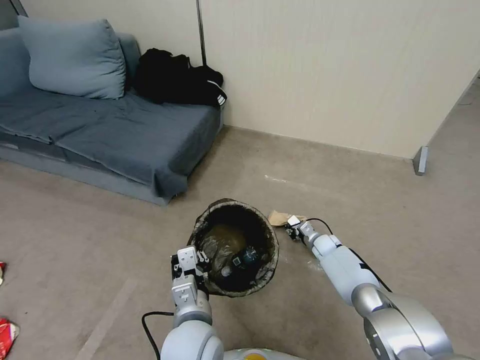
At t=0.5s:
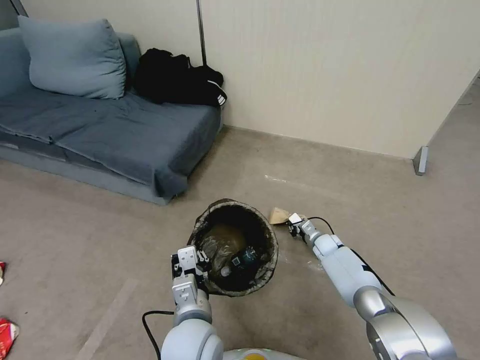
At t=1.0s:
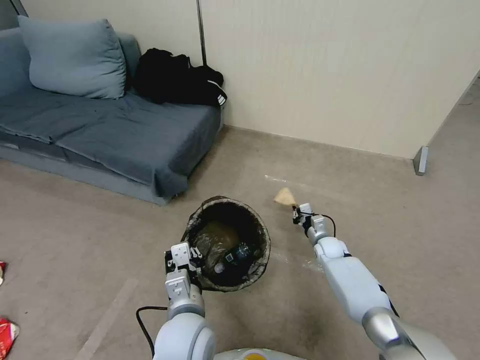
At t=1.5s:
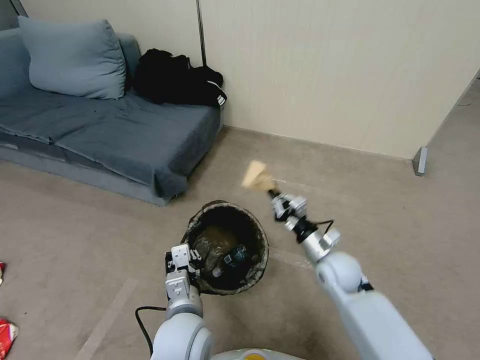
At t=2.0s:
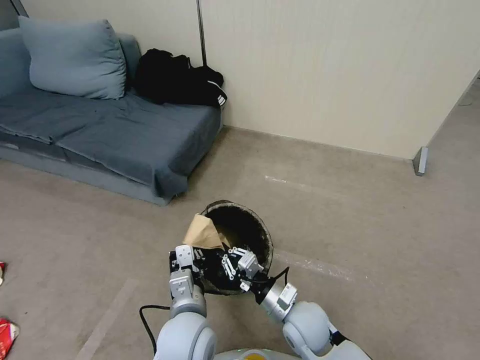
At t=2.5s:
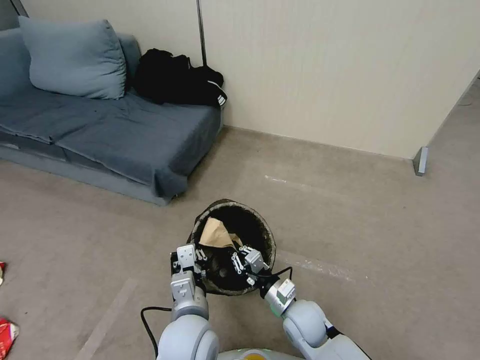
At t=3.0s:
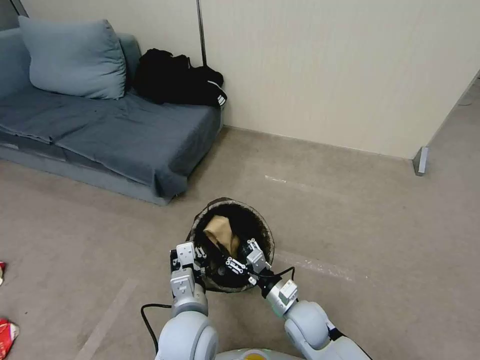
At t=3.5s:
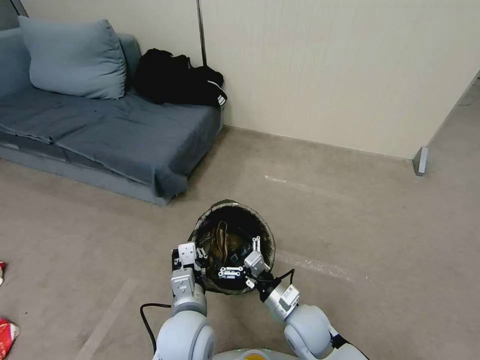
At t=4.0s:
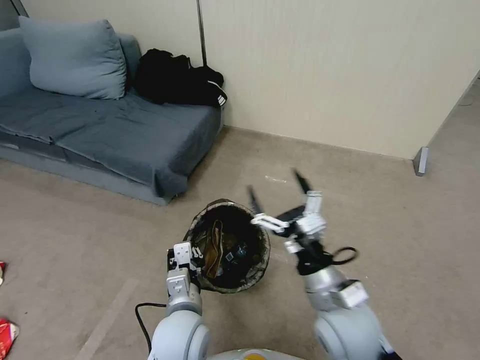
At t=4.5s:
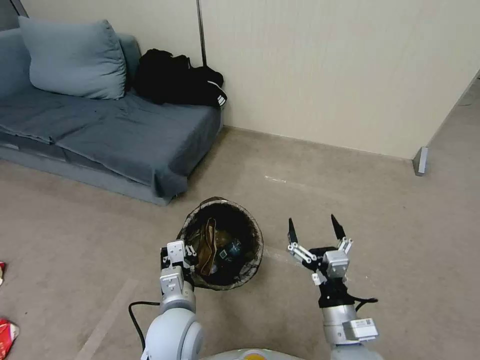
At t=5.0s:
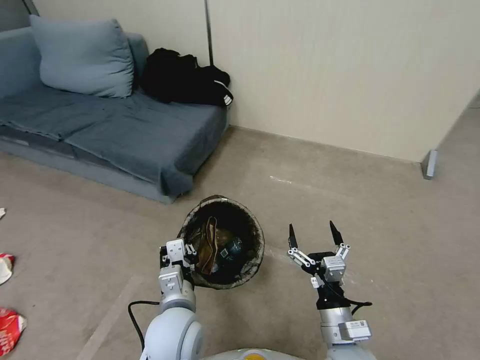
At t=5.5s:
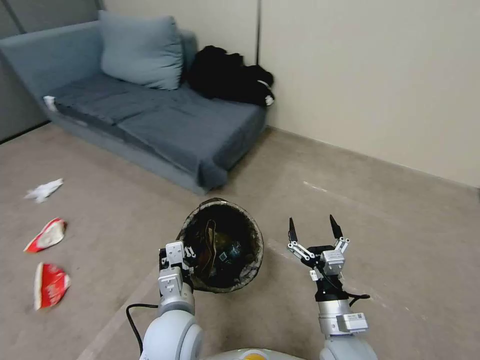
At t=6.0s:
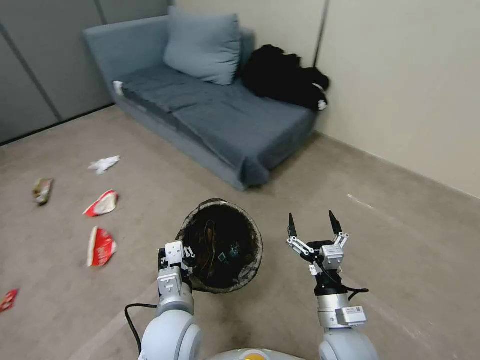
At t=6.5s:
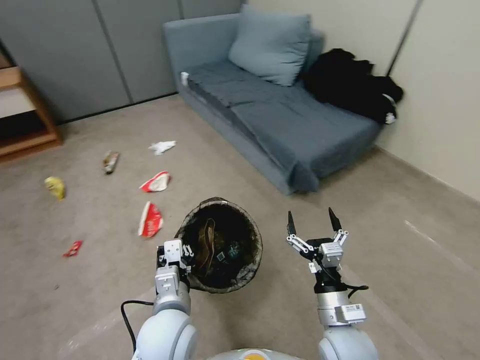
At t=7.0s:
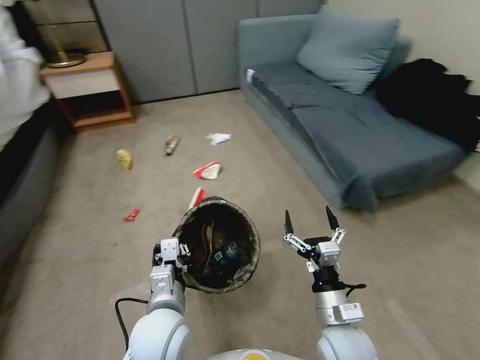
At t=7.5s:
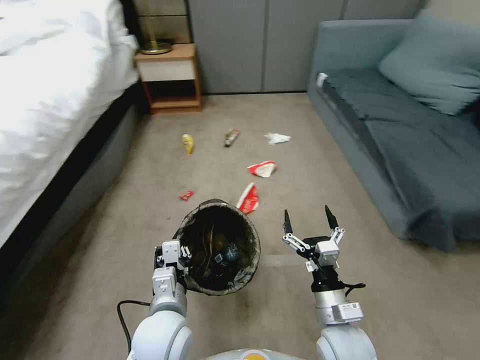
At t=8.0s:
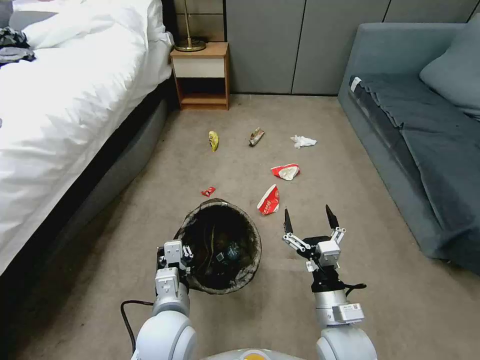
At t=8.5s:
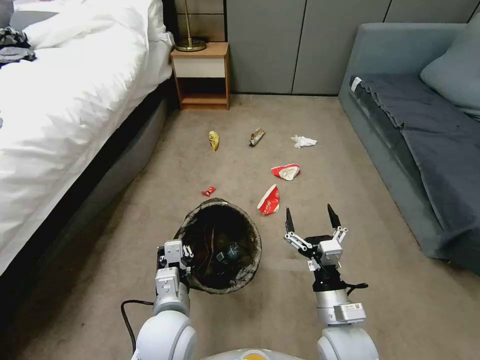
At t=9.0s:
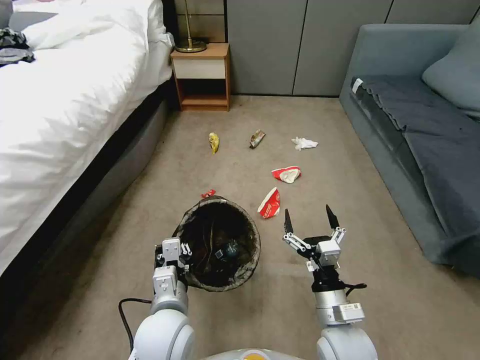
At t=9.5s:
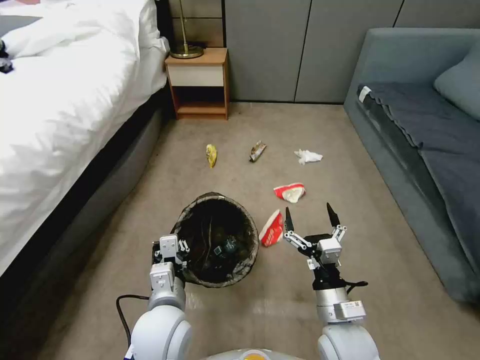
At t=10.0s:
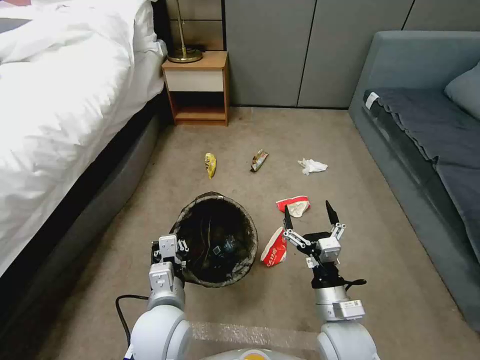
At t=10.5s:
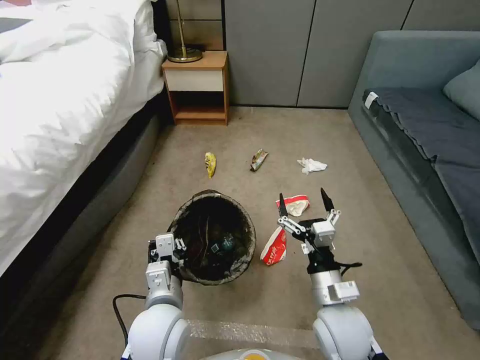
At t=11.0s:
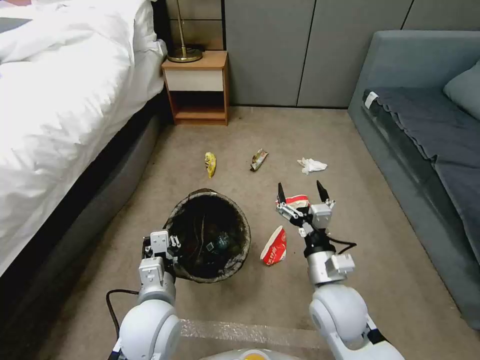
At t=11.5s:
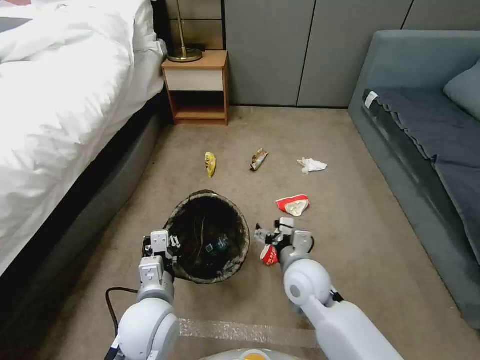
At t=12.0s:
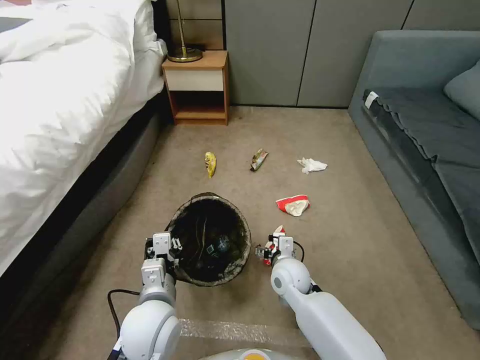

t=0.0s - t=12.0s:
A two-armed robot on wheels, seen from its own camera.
Task of the whole recording: Pick up the trash bin, then pick up the garbage from the floor and place it into the trash bin.
t=0.0s - t=2.0s: The right gripper heads backward, to the left and upward, covering approximately 30 cm.
t=2.0s - t=4.0s: The right gripper shifts approximately 15 cm upward, and opens its fingers.
t=4.0s - t=6.0s: The right gripper travels downward by about 10 cm.
t=10.0s - t=12.0s: The right gripper goes approximately 15 cm forward and to the left.

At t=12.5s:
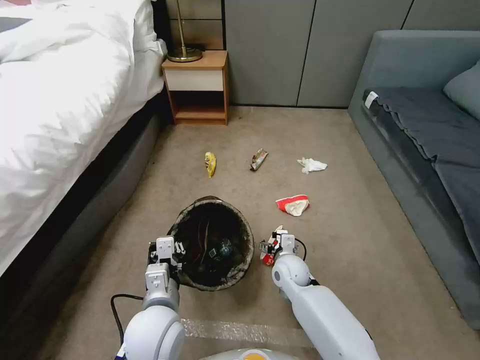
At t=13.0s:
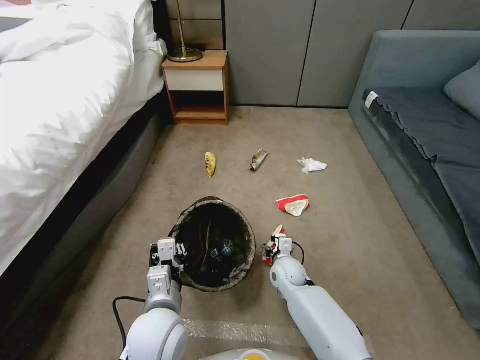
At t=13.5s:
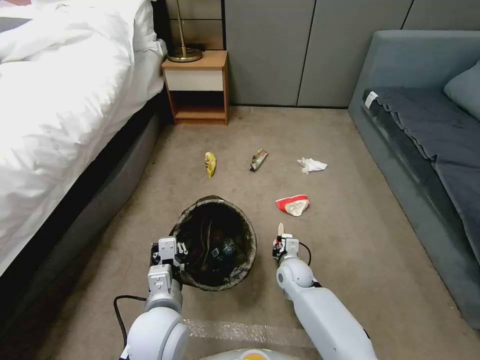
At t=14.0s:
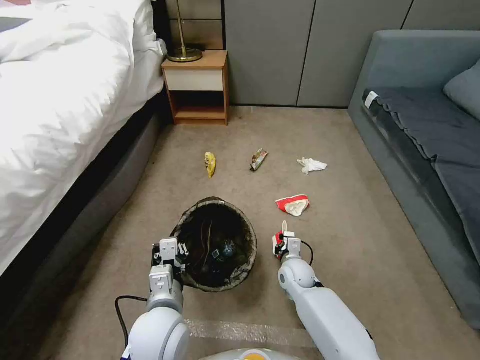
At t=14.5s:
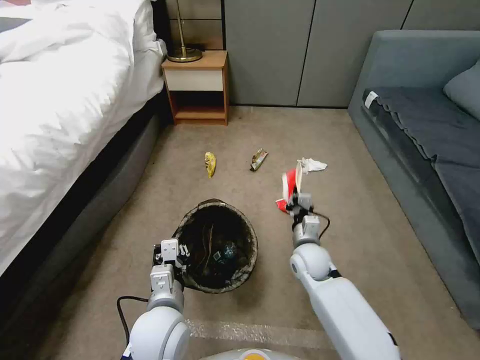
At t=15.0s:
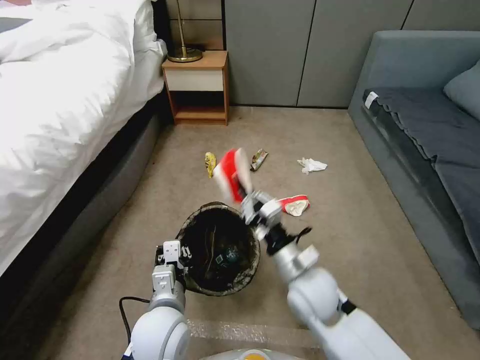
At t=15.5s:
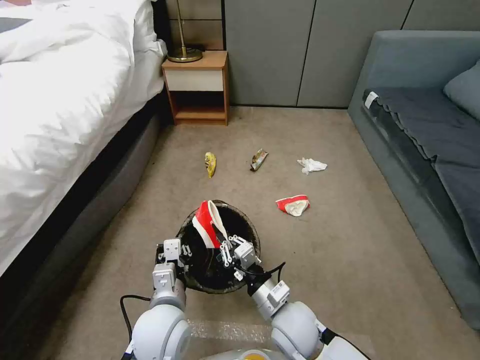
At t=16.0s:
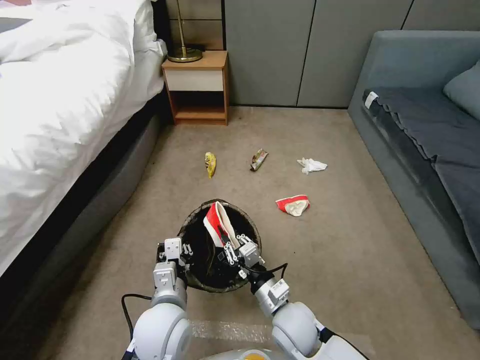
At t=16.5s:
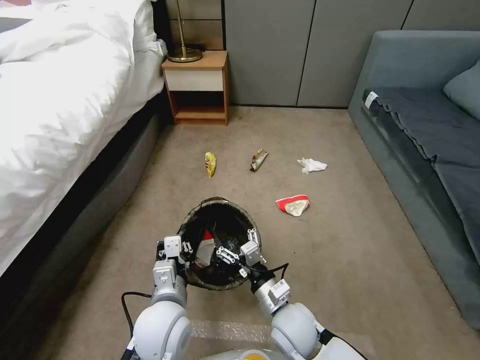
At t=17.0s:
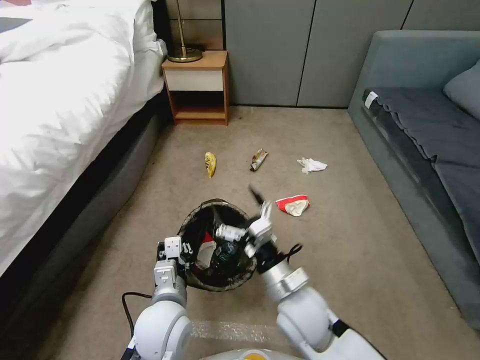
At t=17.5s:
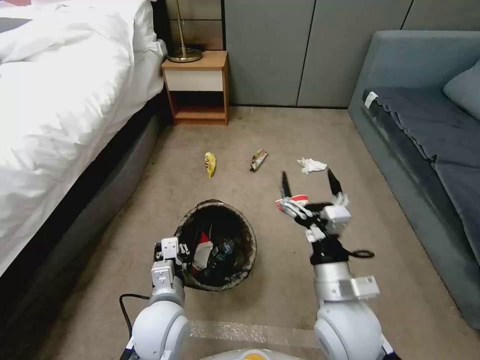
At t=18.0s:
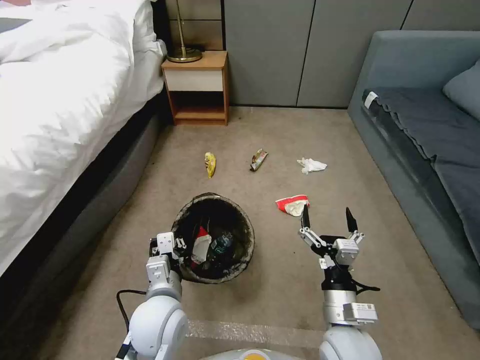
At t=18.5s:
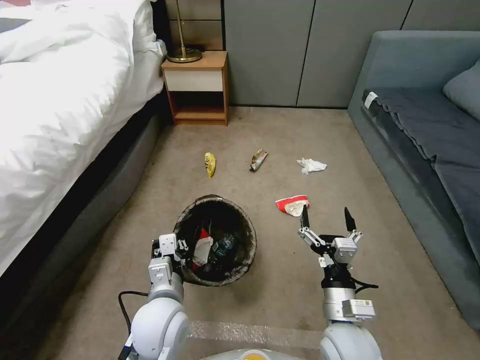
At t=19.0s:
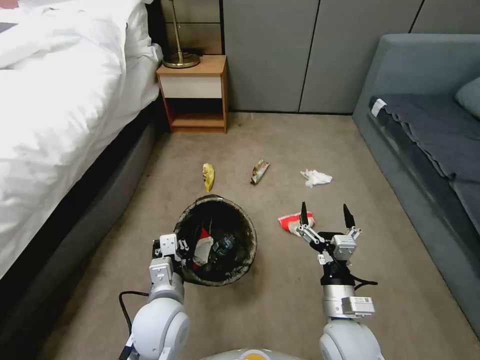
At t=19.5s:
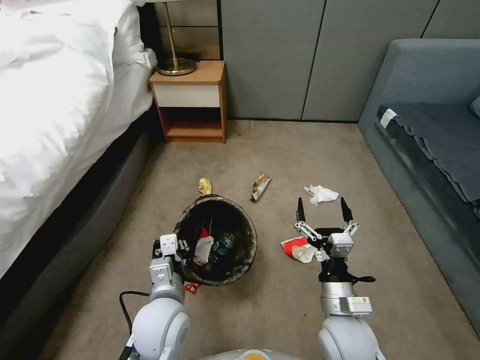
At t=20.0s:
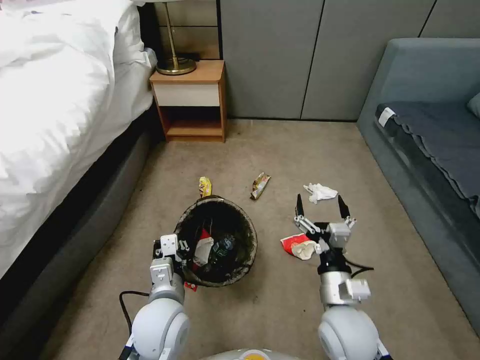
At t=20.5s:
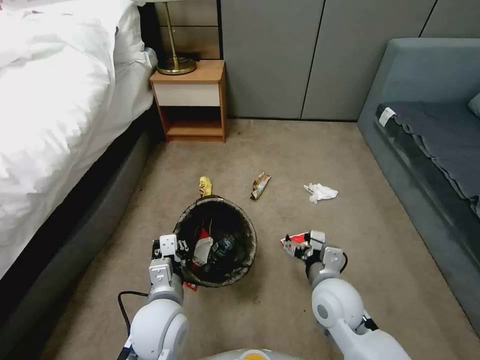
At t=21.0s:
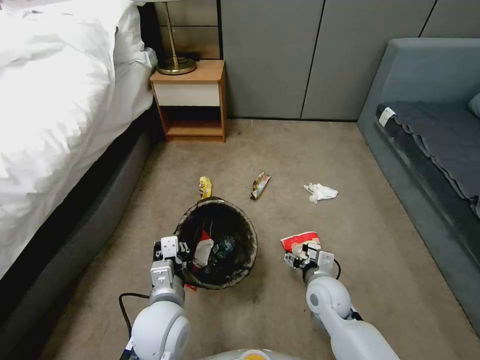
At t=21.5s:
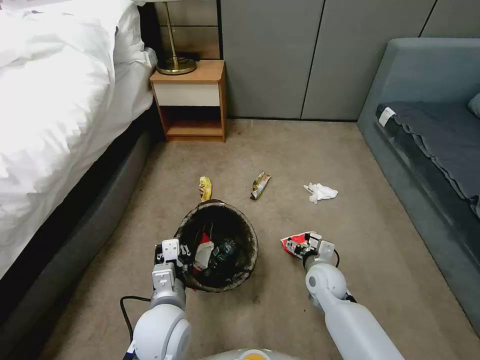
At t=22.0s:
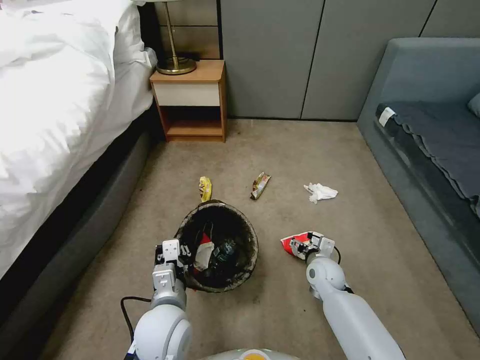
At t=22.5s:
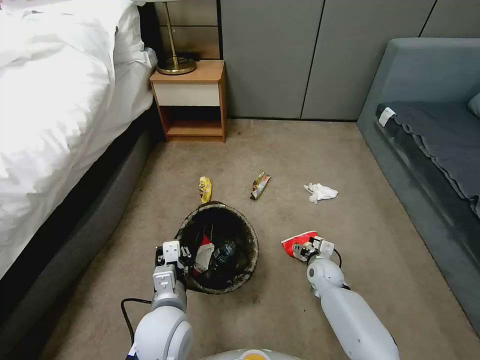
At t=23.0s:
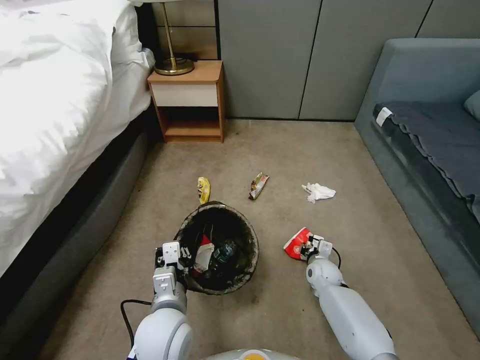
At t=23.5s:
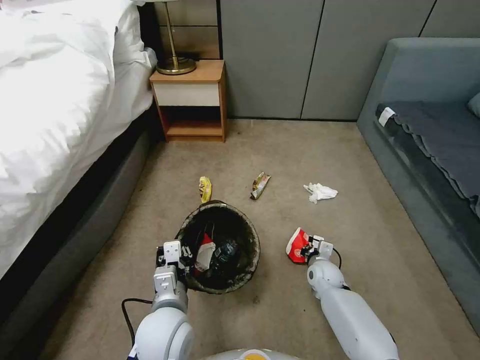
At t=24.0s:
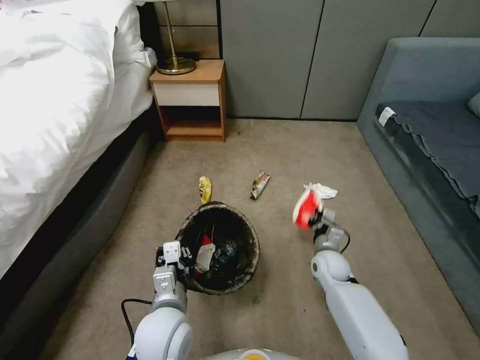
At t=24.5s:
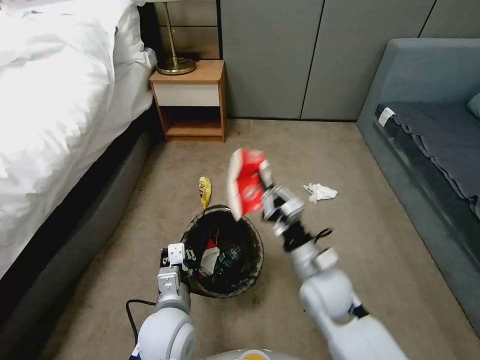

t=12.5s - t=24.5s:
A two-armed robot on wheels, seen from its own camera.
Task of the whole recording: Pick up the trash bin, then pick up the garbage from the floor and place it into the trash bin.
t=12.5s - t=14.5s: The right gripper moves approximately 5 cm, and closes.
t=14.5s - t=16.5s: The right gripper is displaced backward and to the left by about 15 cm, and opens.
t=16.5s - t=18.5s: The right gripper goes approximately 10 cm to the right and upward.
t=18.5s - t=20.5s: The right gripper travels forward by roughly 5 cm.
t=20.5s - t=22.5s: The right gripper heads downward and forward, covering roughly 25 cm.
t=22.5s - t=24.5s: The right gripper shifts about 20 cm upward and backward, and closes its fingers.

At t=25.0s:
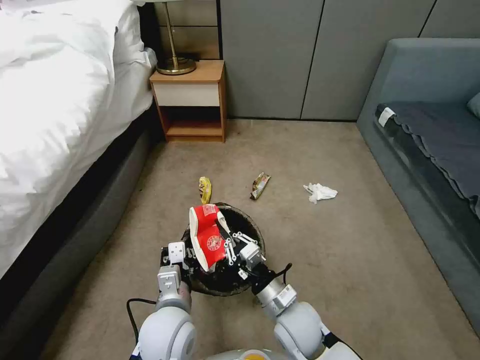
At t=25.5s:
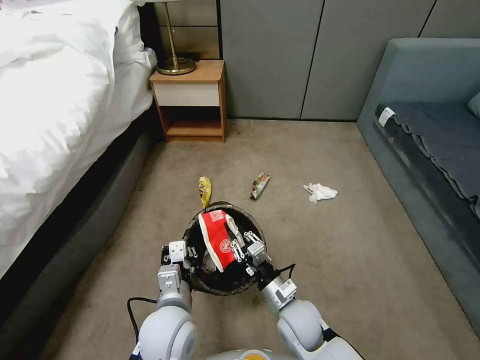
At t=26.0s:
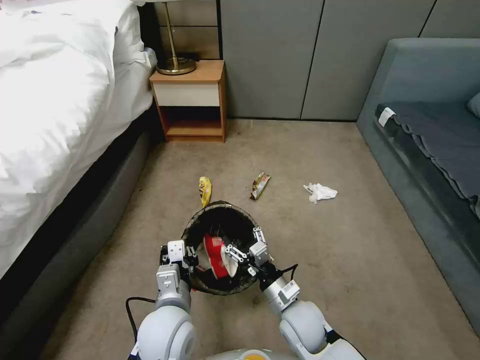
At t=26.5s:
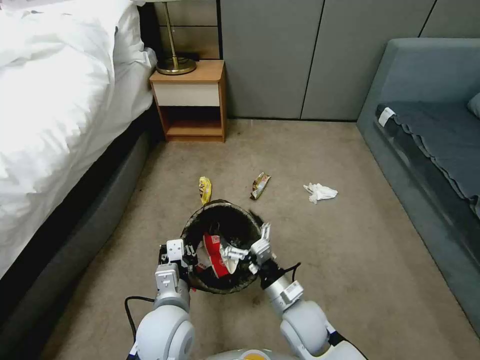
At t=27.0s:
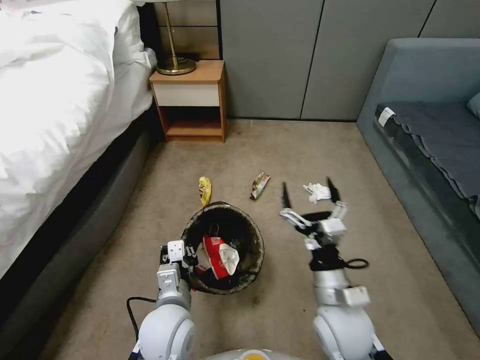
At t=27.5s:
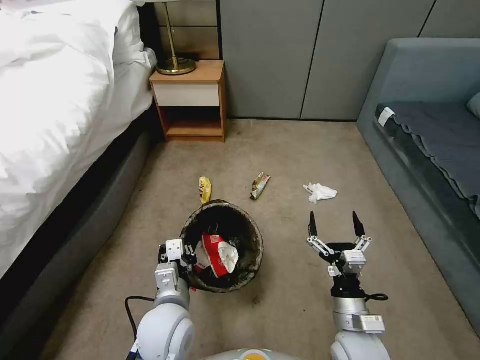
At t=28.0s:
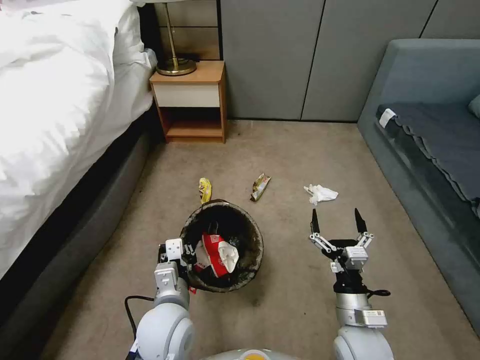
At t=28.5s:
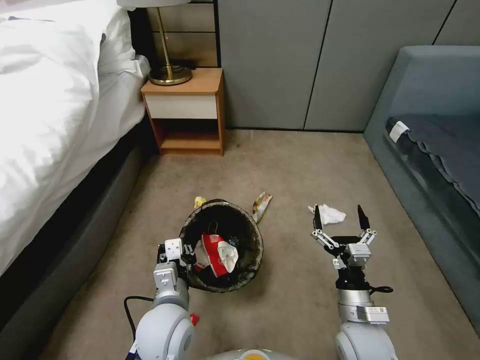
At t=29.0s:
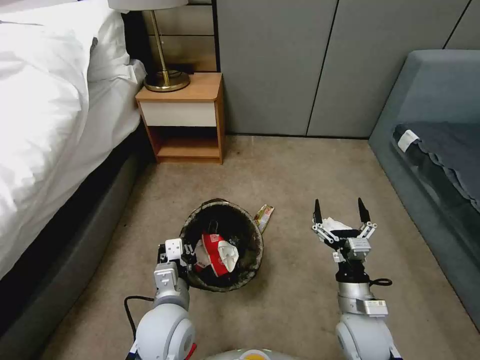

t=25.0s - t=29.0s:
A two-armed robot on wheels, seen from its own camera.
Task of the whole recording: Pick up the trash bin, then pick up the garbage from the floor and place it into the trash bin.
t=25.0s - t=27.0s: The right gripper heads upward and to the right, covering roughly 10 cm, and opens up.
t=27.0s - t=29.0s: The right gripper moves downward and to the right, some 10 cm.
